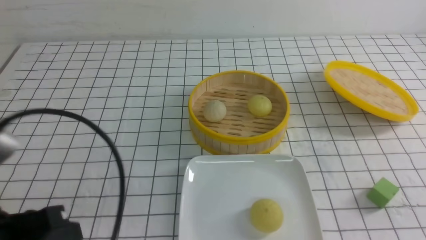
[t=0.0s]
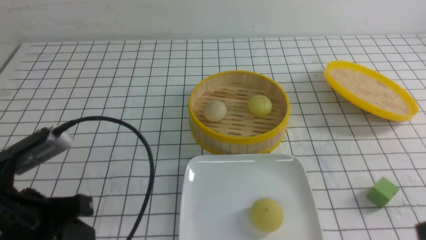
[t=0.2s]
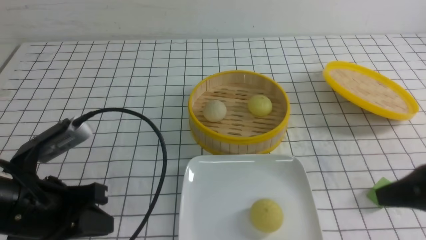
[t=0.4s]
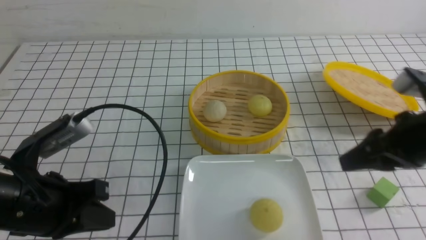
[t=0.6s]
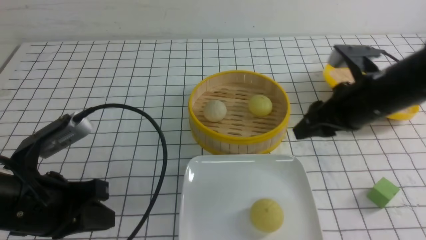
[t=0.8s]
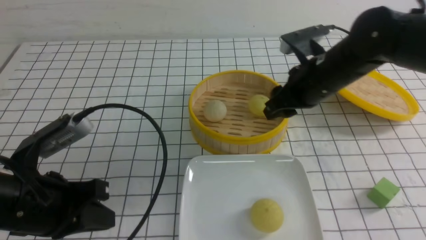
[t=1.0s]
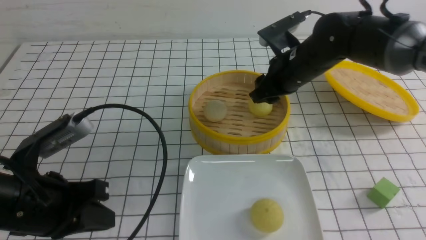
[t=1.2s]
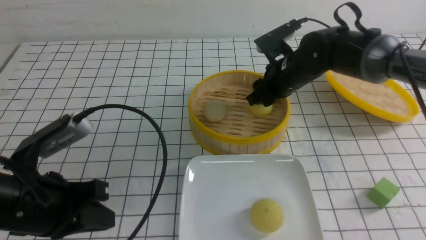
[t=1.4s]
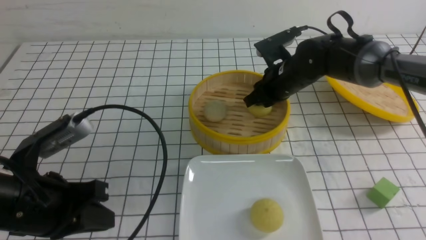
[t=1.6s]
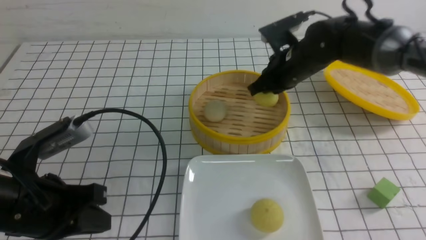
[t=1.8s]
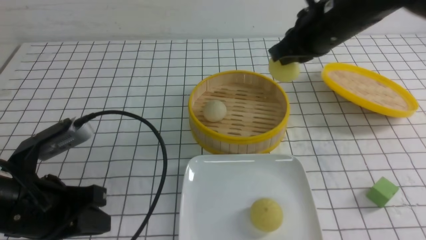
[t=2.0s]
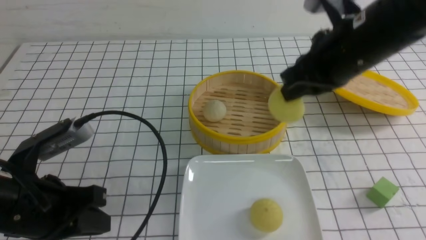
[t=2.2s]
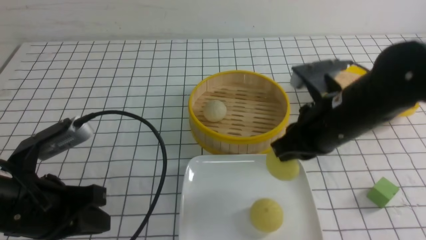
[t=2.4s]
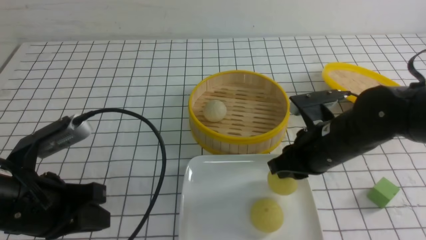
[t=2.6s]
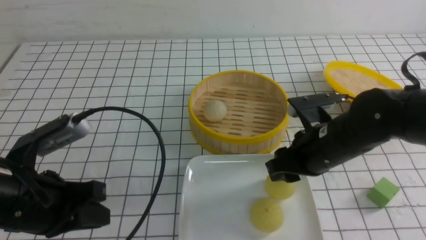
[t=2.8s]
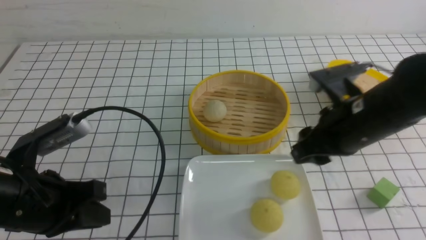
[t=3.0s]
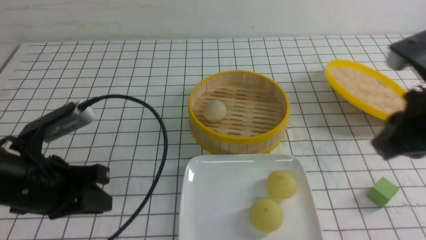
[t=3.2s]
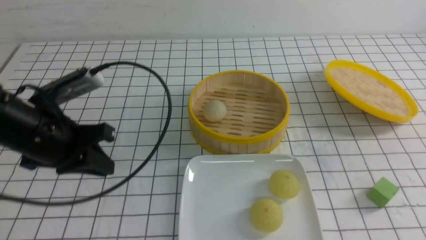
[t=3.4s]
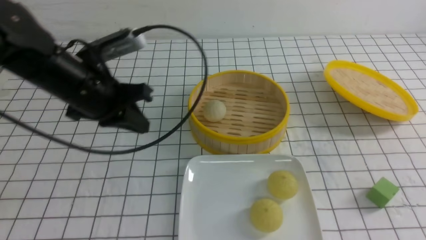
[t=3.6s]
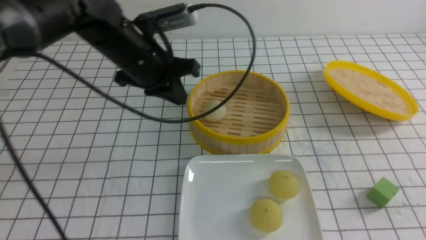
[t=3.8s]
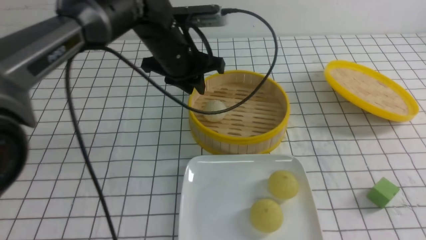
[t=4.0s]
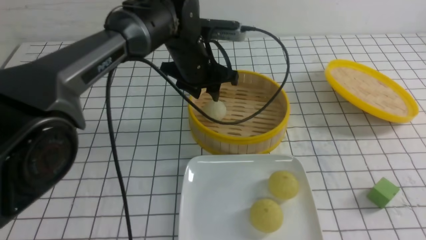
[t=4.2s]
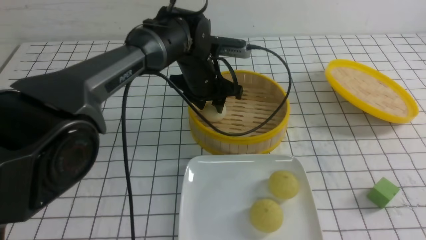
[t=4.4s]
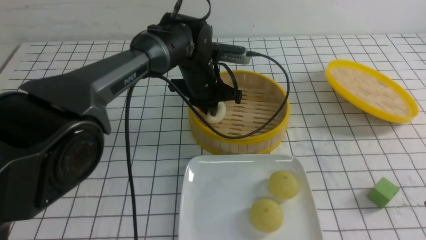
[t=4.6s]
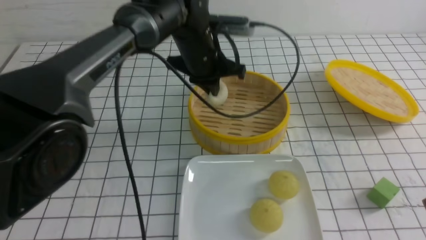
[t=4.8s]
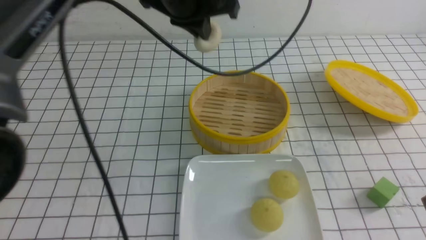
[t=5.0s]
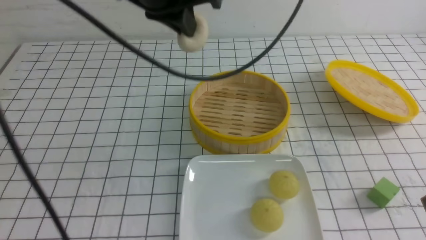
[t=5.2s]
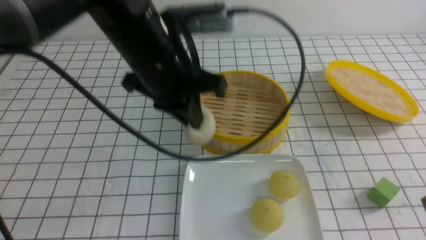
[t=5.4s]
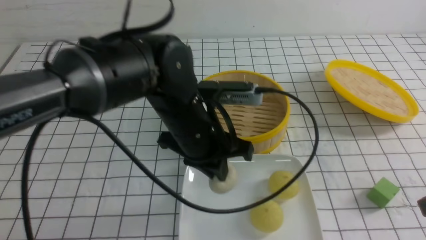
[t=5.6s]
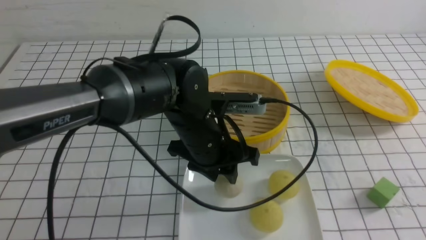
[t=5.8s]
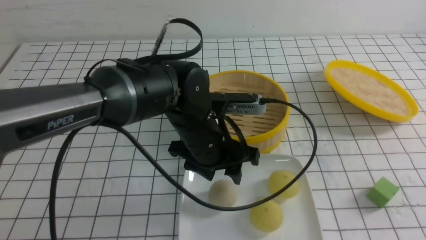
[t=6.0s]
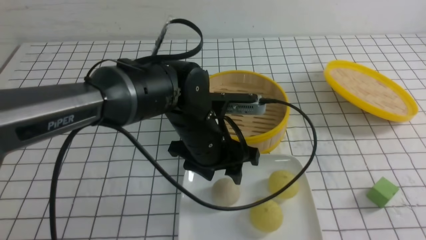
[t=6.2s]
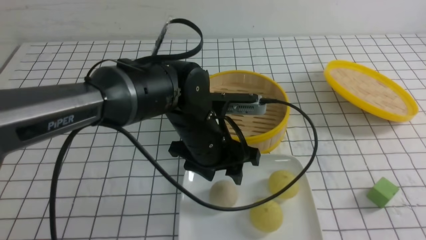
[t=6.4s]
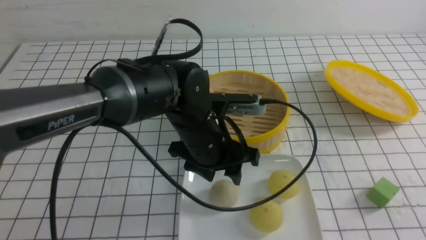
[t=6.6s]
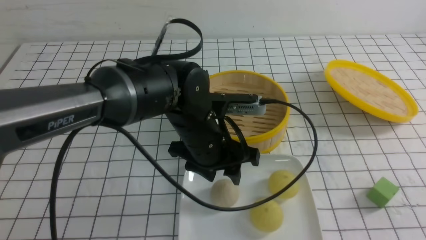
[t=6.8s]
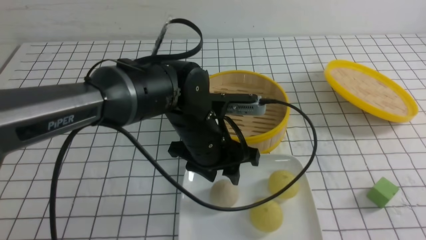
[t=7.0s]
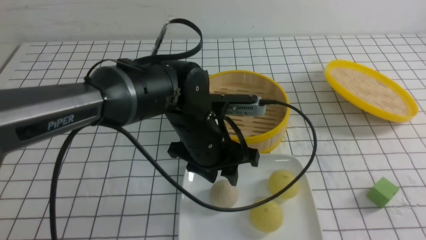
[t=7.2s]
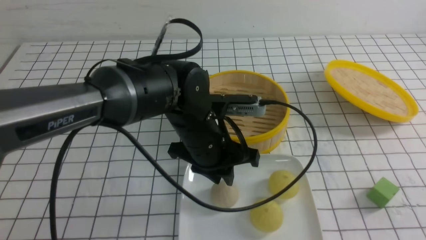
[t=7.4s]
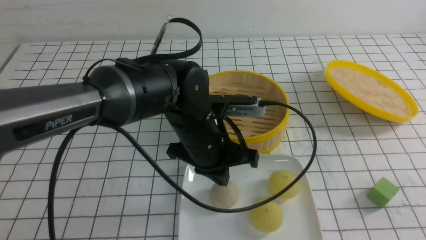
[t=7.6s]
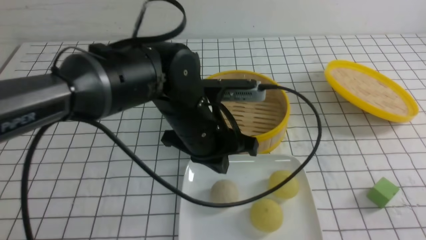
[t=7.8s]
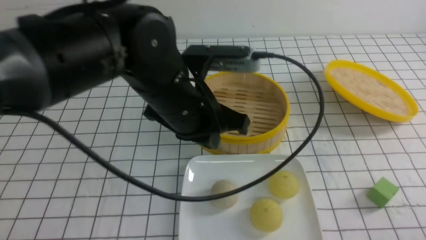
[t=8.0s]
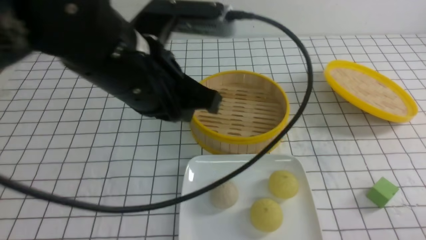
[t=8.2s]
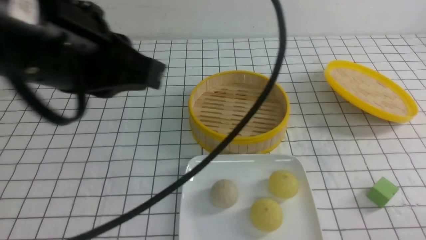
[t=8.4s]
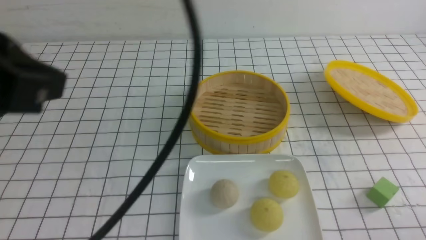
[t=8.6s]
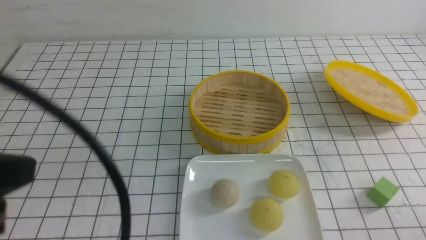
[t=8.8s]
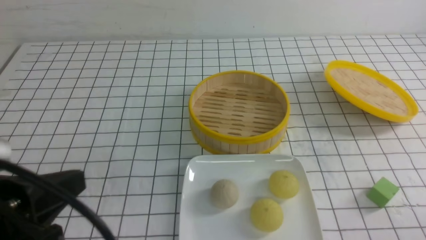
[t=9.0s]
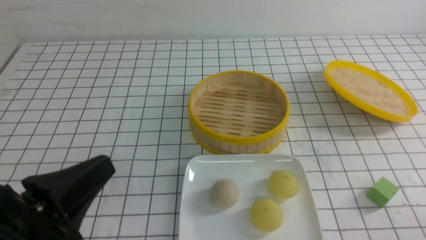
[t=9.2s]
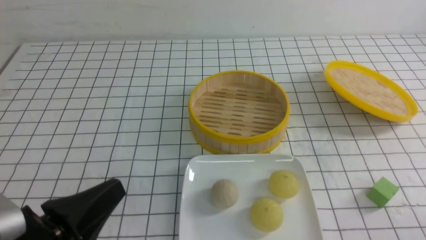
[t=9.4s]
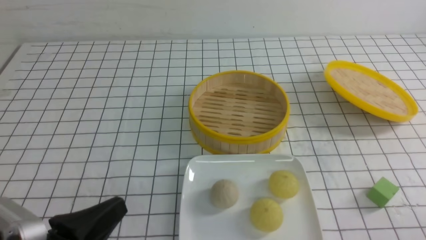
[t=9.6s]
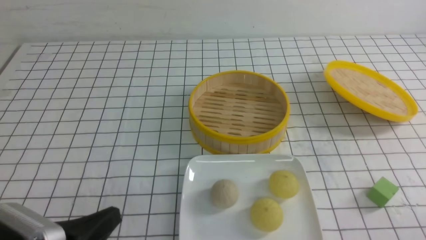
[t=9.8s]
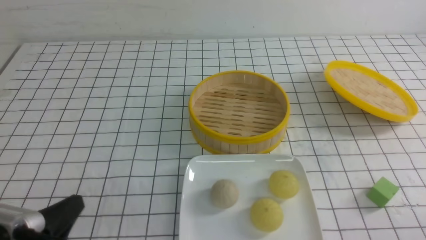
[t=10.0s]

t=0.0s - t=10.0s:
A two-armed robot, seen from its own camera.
Step, t=2.0s - t=2.8s: use the right arm to put the steamed stuffed bun into the plate.
Step, t=3.2s - t=4.6s: use the left arm to grab the steamed stuffed bun that is closest to it.
Step, t=4.8s - t=6.2s: use the left arm to put the steamed stuffed bun into the plate.
t=0.0s - t=1.4s: The left gripper heads forward, covering some 5 cm; the right gripper shifts about 40 cm forward and to the left, and opens its fingers.
t=1.4s - t=2.8s: The right gripper heads backward, covering about 15 cm, and closes, then reopens.
t=2.8s - t=4.2s: The left gripper moves forward and to the right, approximately 30 cm, and opens its fingers, while the right gripper shifts some 20 cm backward and to the right, and closes.
t=4.2s - t=5.8s: The left gripper shifts about 15 cm backward, goes upward and returns, approximately 15 cm each way, and closes, then opens again.
t=5.8s - t=7.2s: The right gripper is displaced backward by roughly 5 cm.
t=7.2s - t=8.6s: The right gripper heads downward, covering approximately 10 cm. Meanwhile the left gripper goes about 30 cm upward, backward and to the left, and closes.
t=8.6s - t=10.0s: The left gripper heads downward, covering some 25 cm.

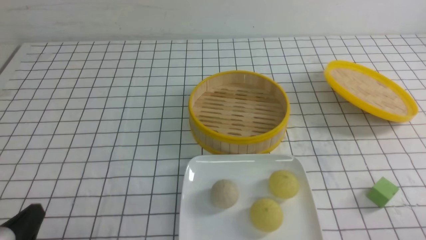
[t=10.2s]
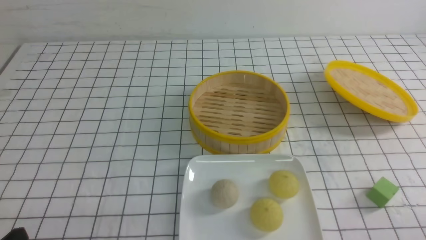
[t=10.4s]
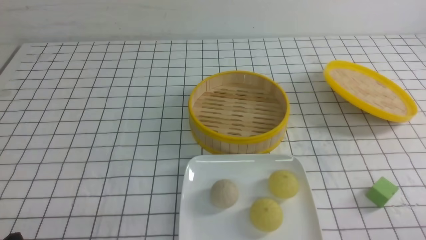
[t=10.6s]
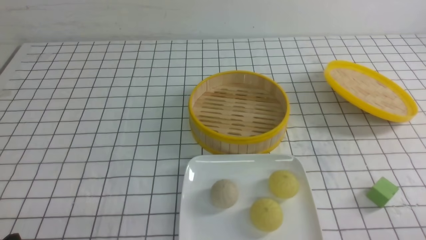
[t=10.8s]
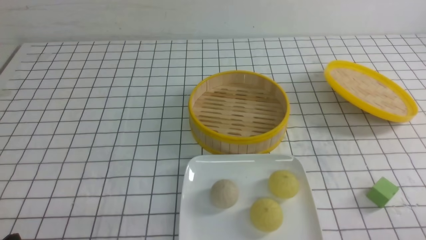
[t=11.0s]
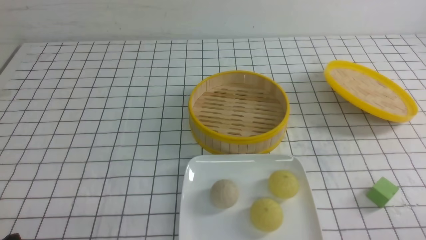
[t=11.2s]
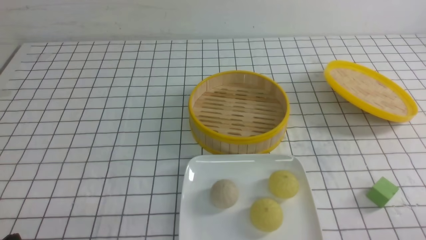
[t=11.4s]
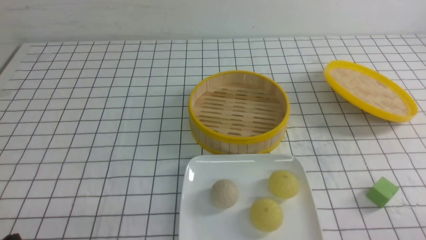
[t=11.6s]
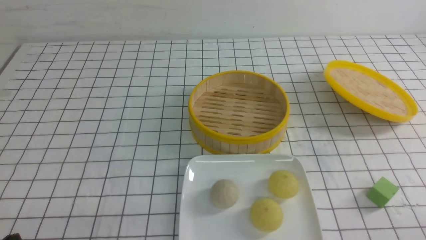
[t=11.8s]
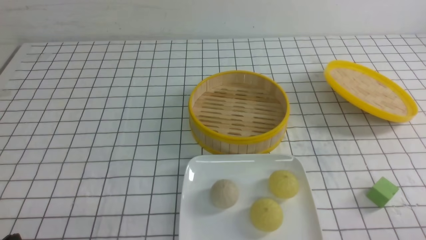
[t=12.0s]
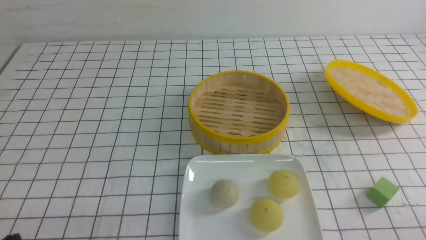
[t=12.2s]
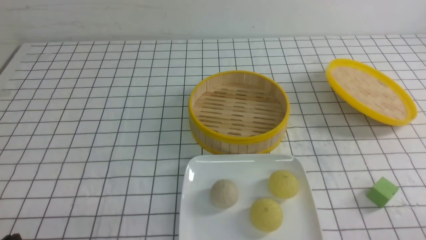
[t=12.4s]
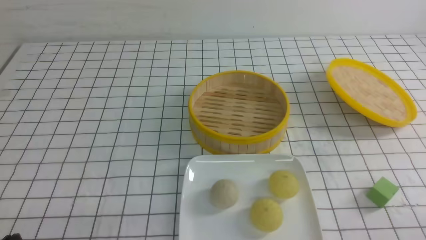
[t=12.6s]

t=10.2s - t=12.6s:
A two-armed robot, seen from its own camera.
t=10.2s - t=11.4s: The grippers stay close to where they were, moving slightly.
t=11.4s - t=12.6s: Both grippers stay put.
